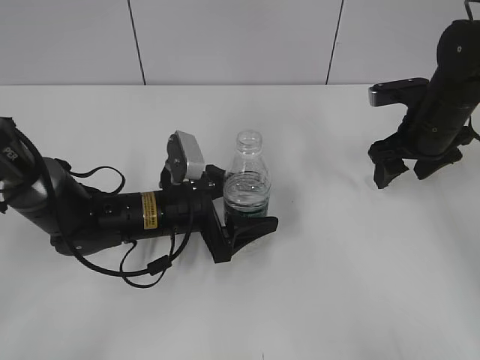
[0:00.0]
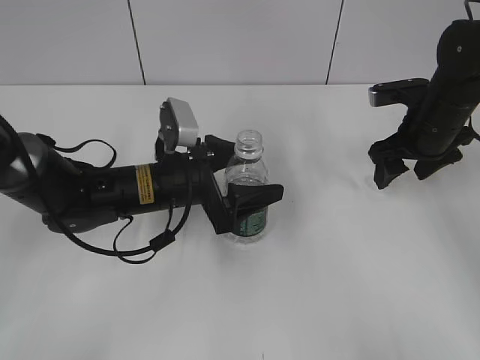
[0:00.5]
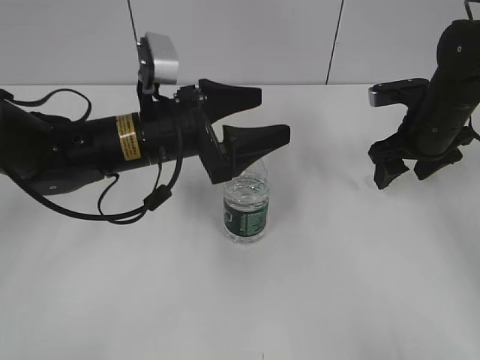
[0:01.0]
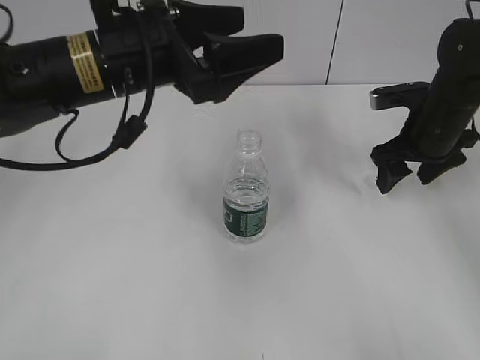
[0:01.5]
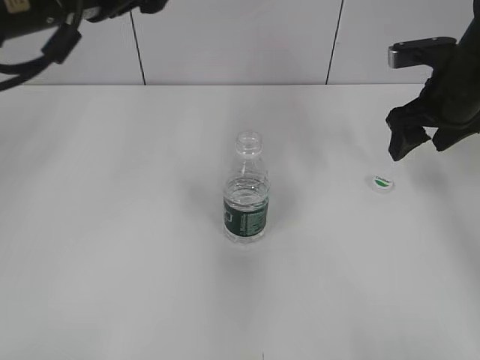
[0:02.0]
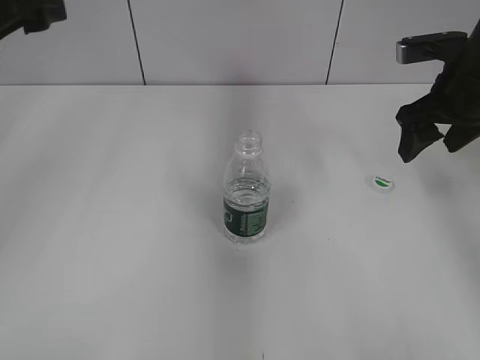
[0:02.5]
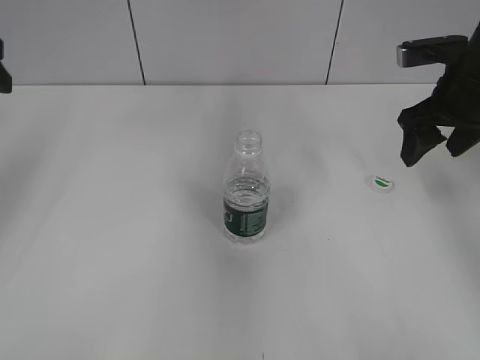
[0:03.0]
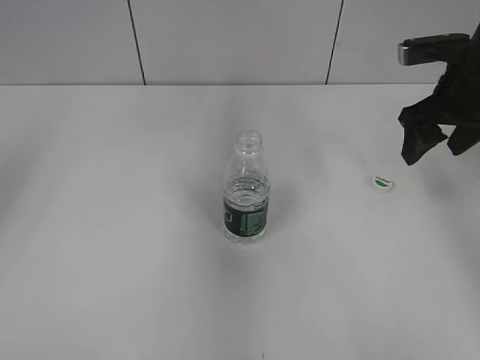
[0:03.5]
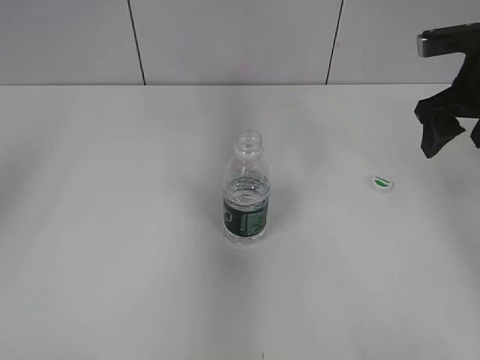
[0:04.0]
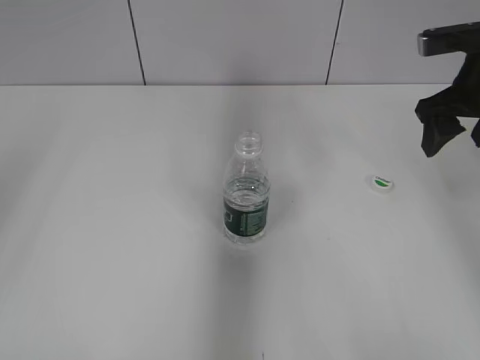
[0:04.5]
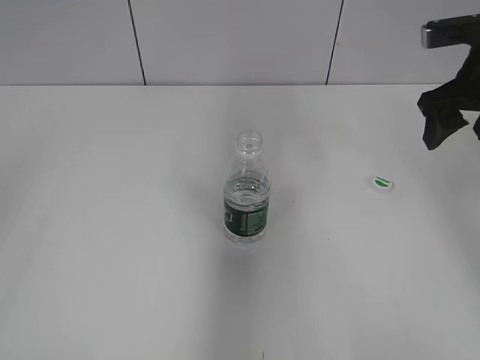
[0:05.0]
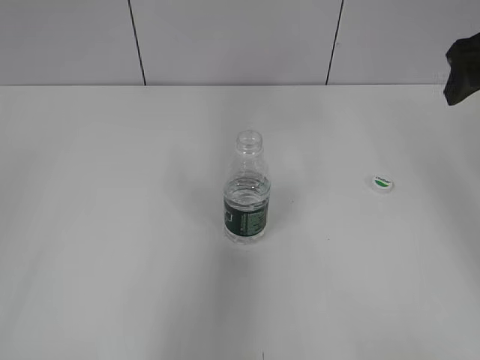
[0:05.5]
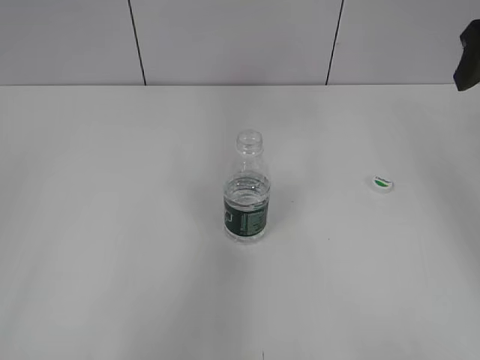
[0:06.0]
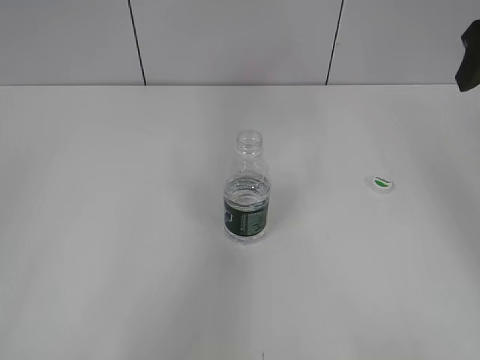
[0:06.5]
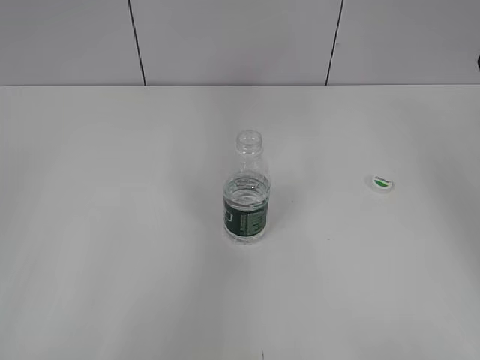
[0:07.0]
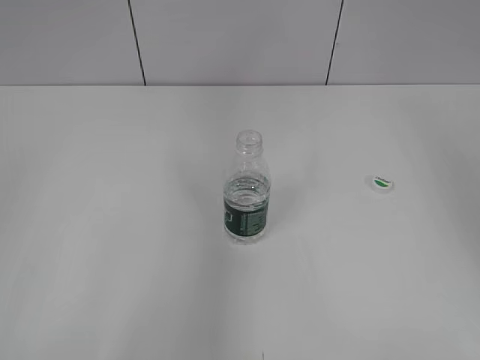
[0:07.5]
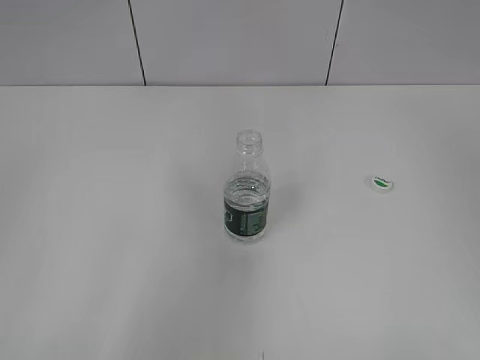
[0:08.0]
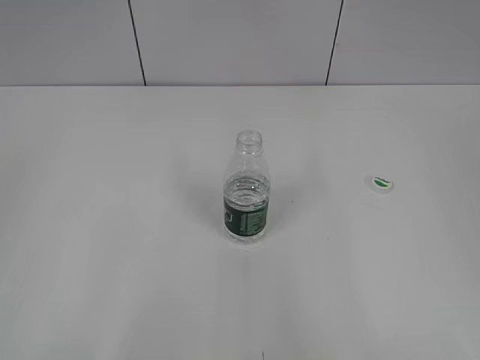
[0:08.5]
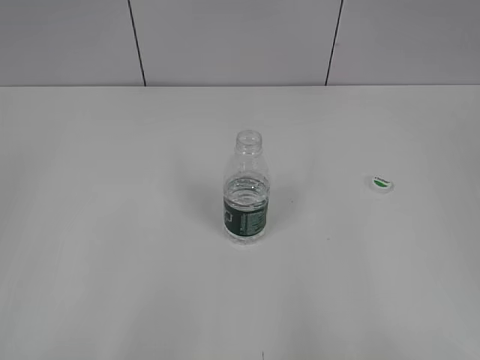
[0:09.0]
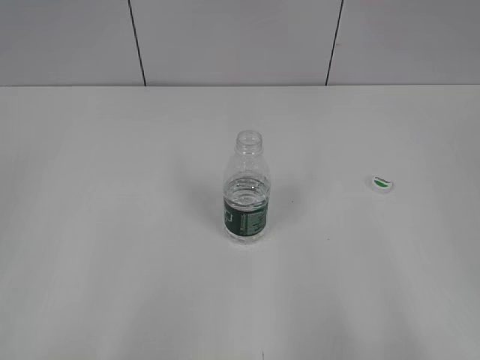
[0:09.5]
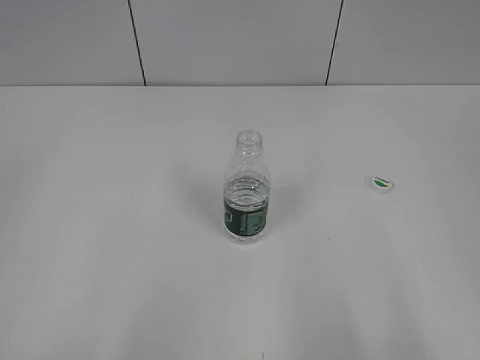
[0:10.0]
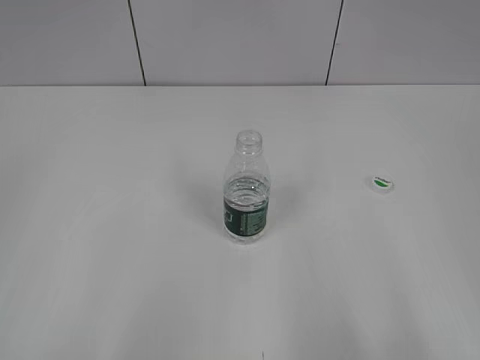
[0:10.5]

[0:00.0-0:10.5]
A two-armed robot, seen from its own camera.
0:00.0 to 0:02.0: The left gripper travels upward by some 25 cm, while the right gripper heads upward, covering about 5 cm.
0:02.0 to 0:04.0: The left gripper is displaced to the left by some 15 cm.
0:04.0 to 0:06.5: The right gripper shifts about 10 cm upward.
0:06.5 to 0:08.5: The right gripper is displaced backward by some 35 cm.
